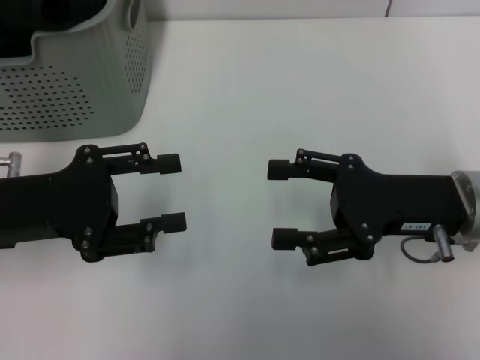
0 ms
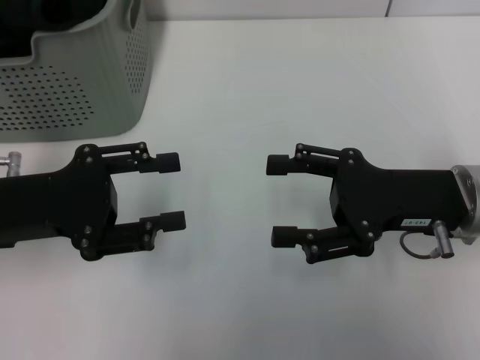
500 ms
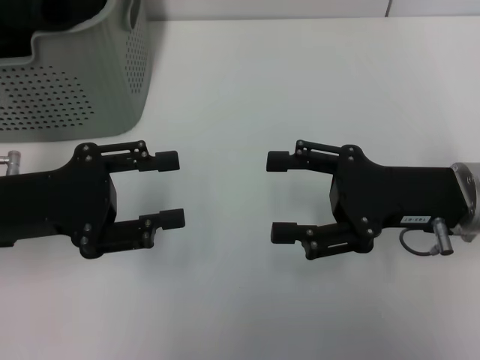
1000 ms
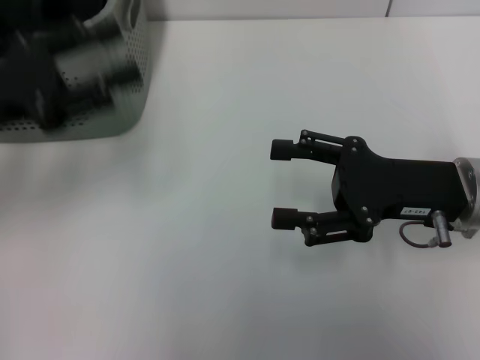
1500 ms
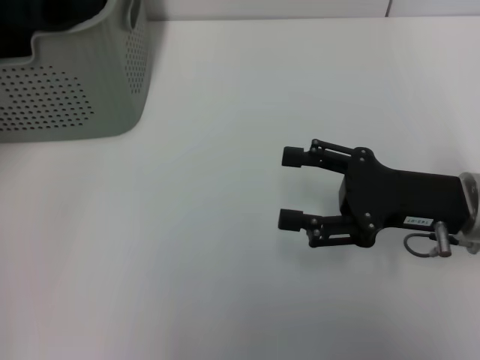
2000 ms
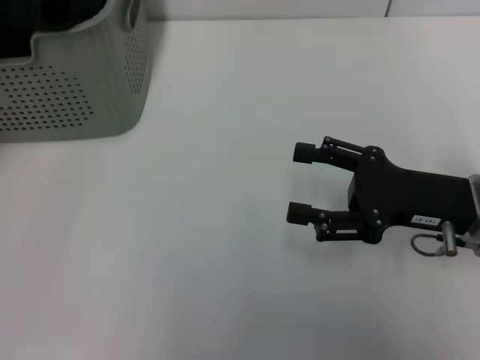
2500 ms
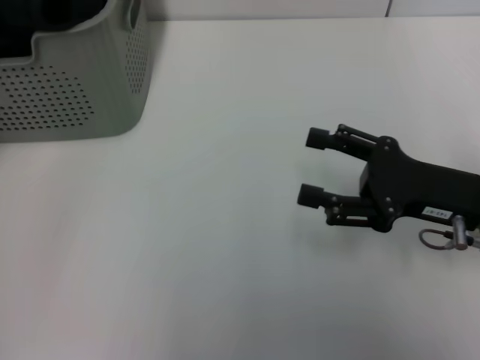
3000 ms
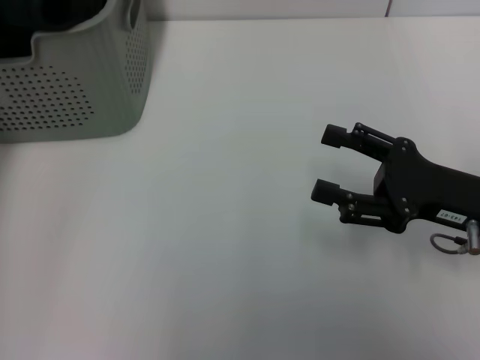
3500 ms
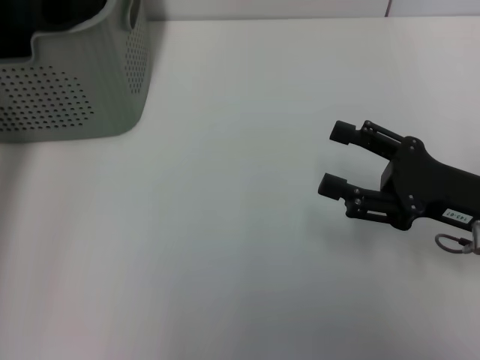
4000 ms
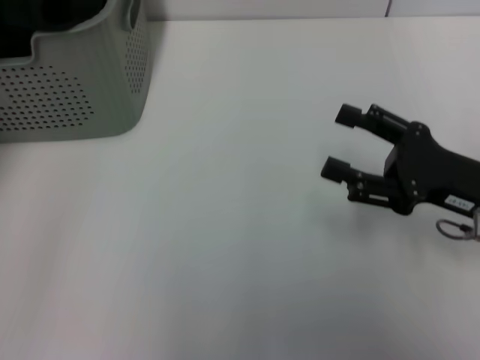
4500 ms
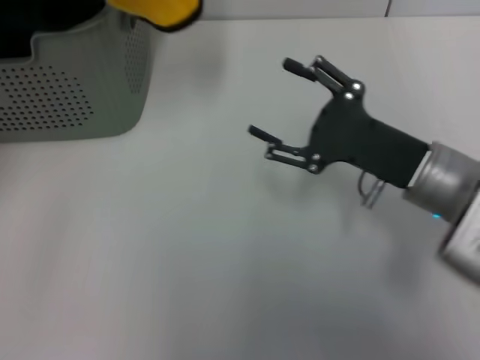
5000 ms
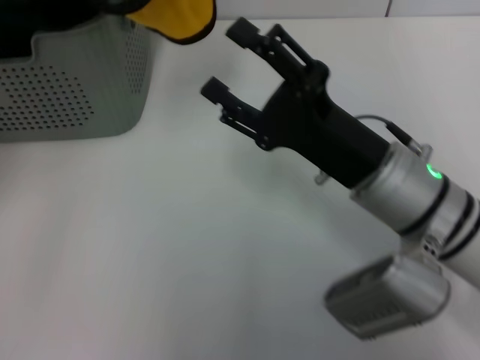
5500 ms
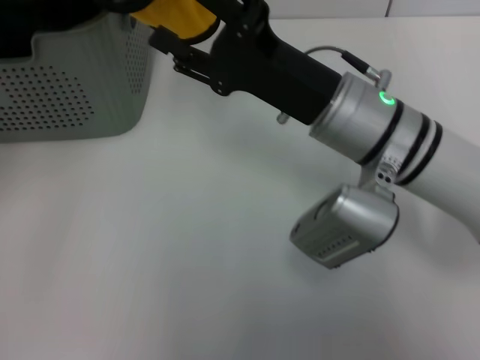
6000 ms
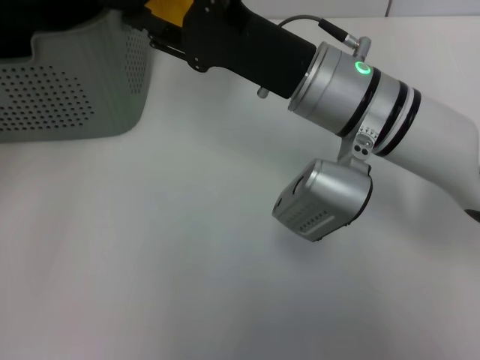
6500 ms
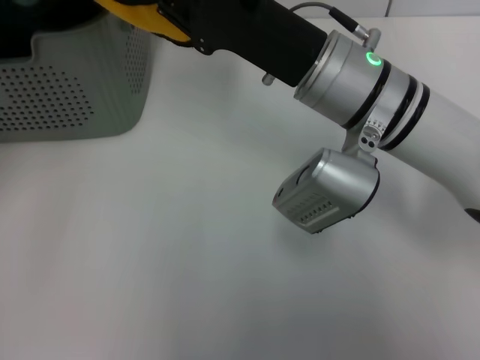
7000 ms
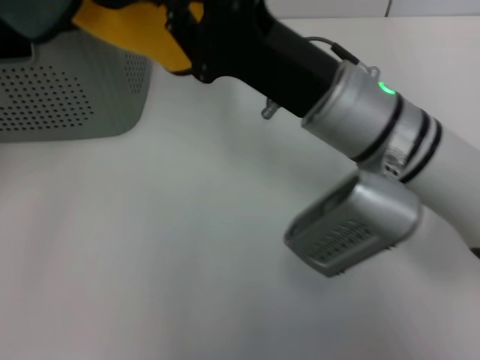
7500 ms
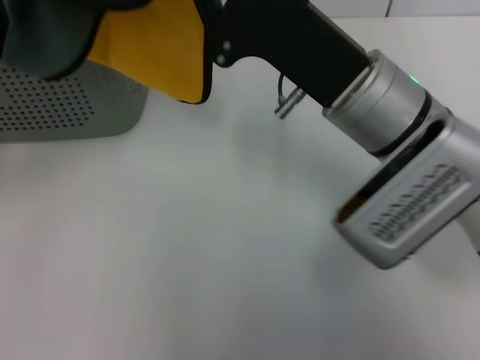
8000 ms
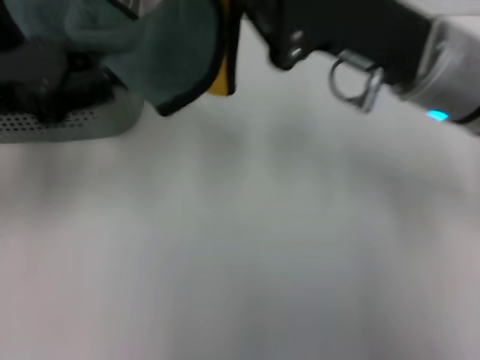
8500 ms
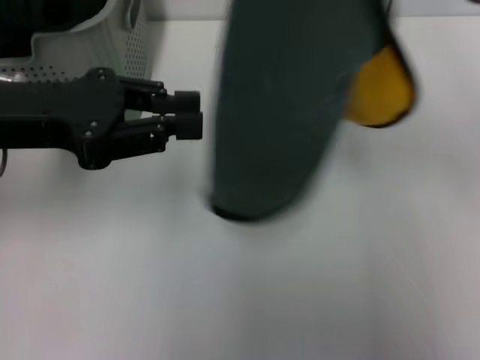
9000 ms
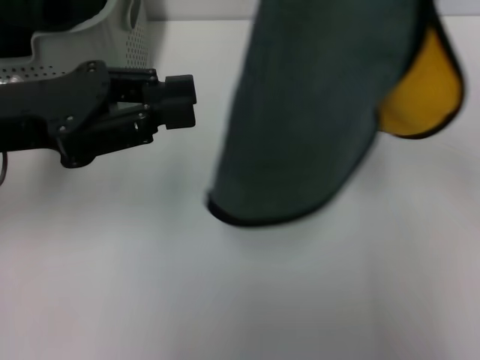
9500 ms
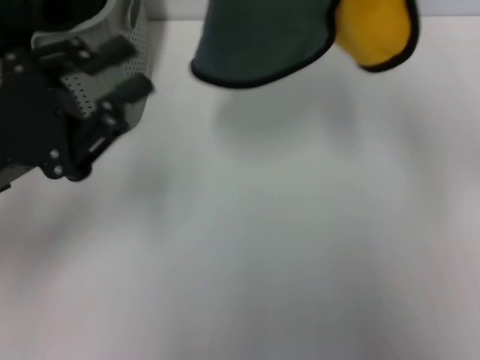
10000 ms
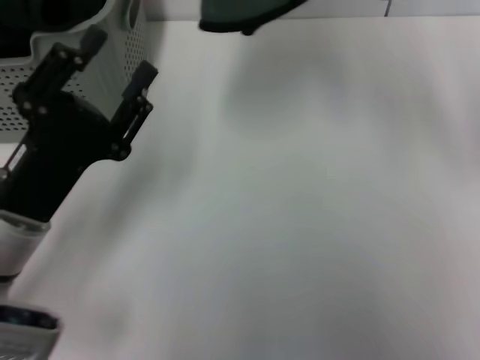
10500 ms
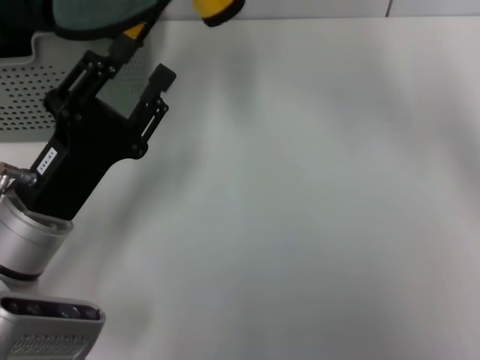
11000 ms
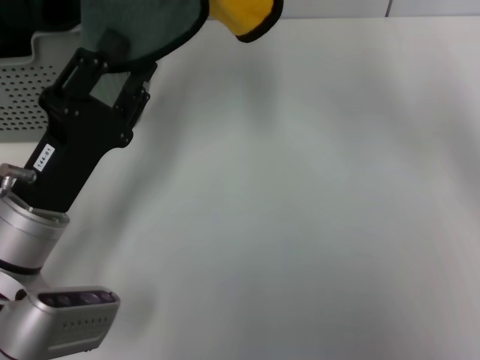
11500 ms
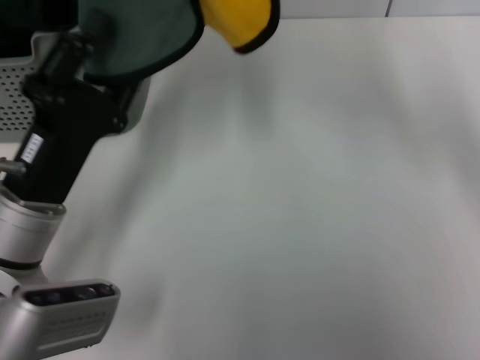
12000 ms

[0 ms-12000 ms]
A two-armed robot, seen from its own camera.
Task of the whole recording: pick up the towel from the storage box and lay it flat on the table.
Step, 0 ms to 3500 ms: Pick up a towel with the left gripper.
Step, 4000 ms to 7000 ms: Spread the towel flat with the left gripper.
0 ms to 2000 ms: The left gripper heads upward and forward, covering some 15 cm.
4000 ms to 6000 ms: The right gripper is displaced to the left by about 15 cm. The left gripper travels upward by approximately 5 cm, and closes.
6000 ms to 8000 ms: The left gripper shifts by roughly 5 cm; the right gripper closes its fingers.
8000 ms to 10000 ms: The left gripper heads downward and to the right, covering about 10 cm, and opens. The right gripper shifts approximately 15 cm upward and to the right.
10000 ms to 12000 ms: The right gripper travels to the left and forward by some 10 cm. Meanwhile the left gripper heads downward and to the right, covering some 10 cm.

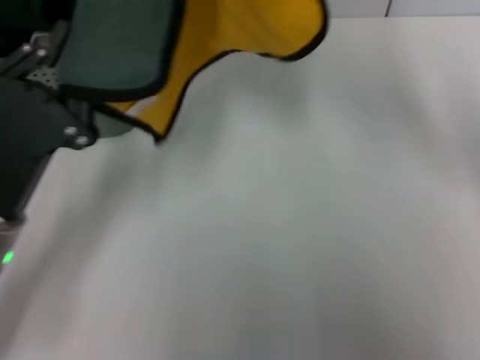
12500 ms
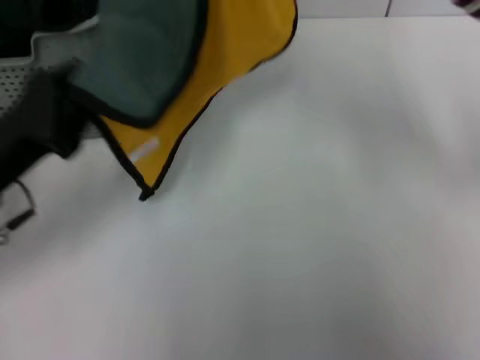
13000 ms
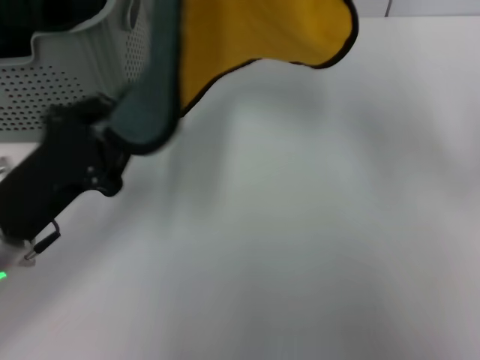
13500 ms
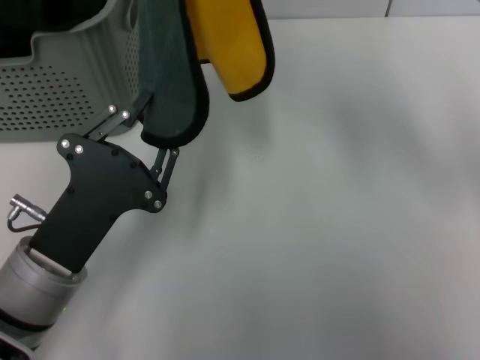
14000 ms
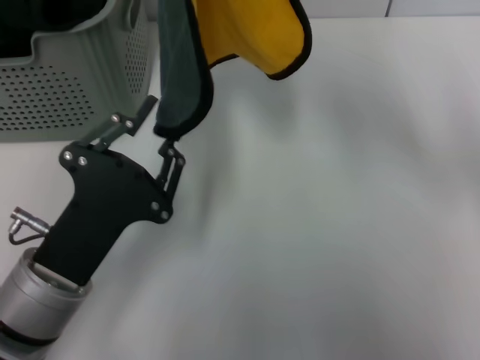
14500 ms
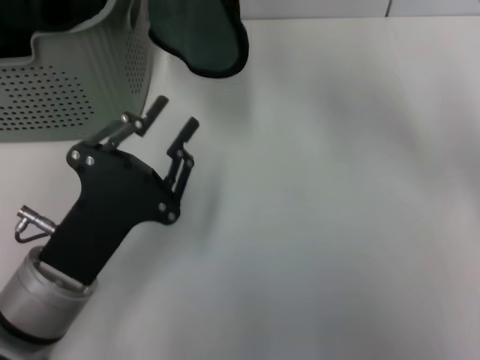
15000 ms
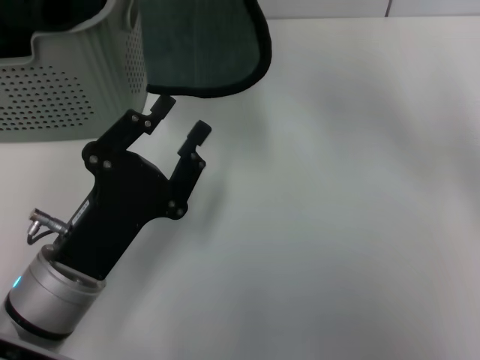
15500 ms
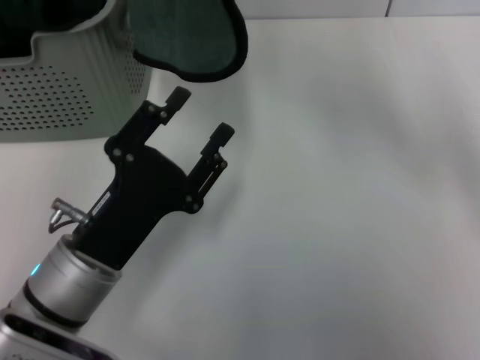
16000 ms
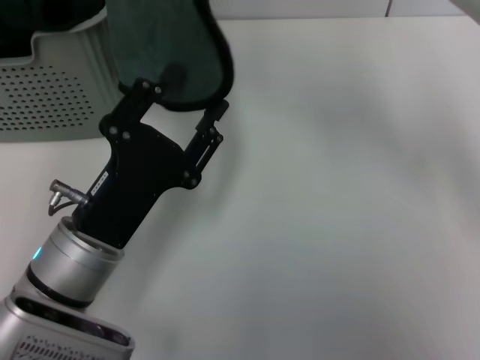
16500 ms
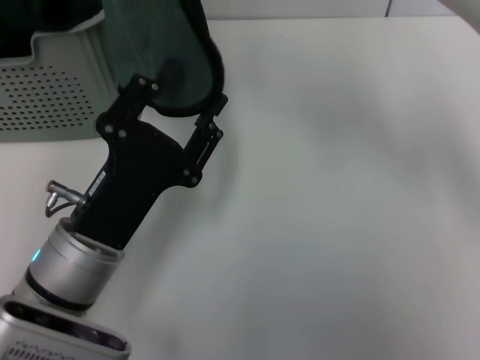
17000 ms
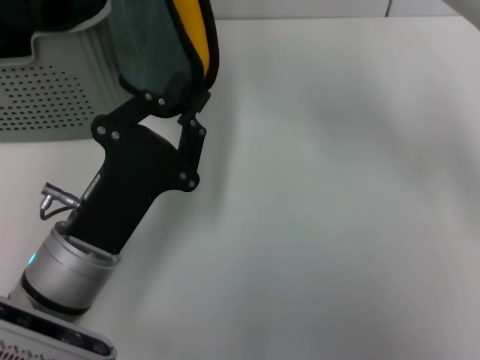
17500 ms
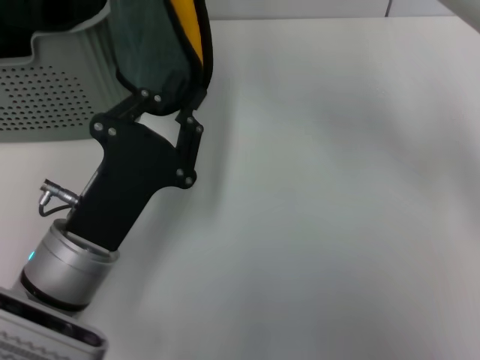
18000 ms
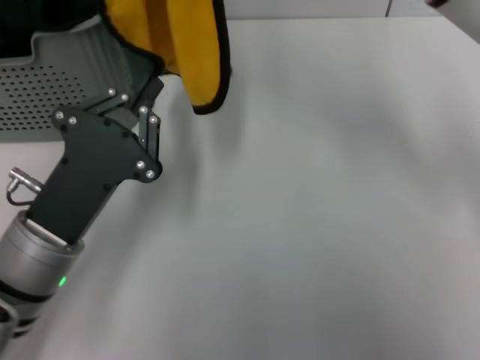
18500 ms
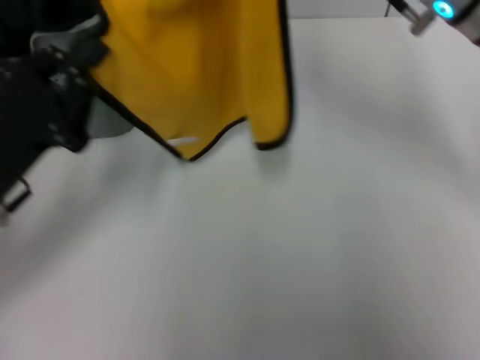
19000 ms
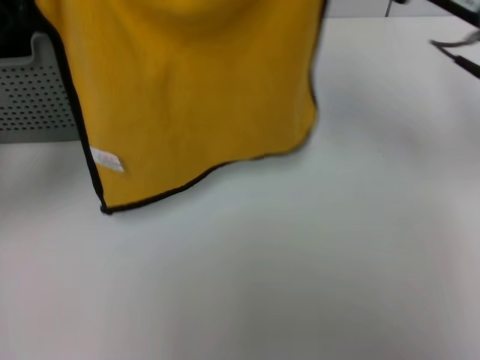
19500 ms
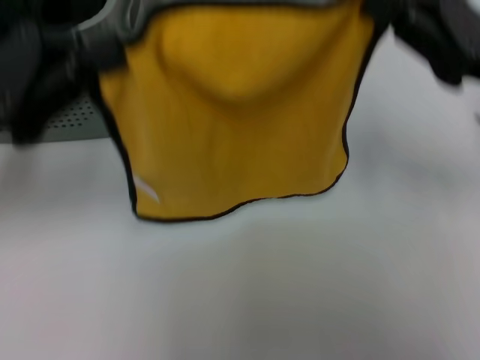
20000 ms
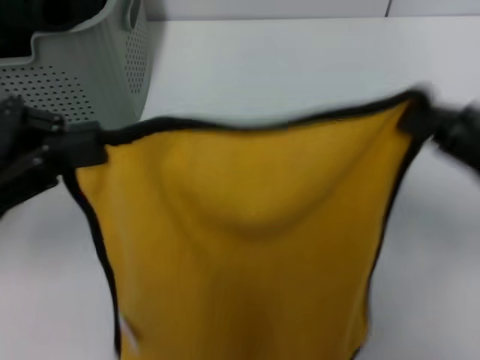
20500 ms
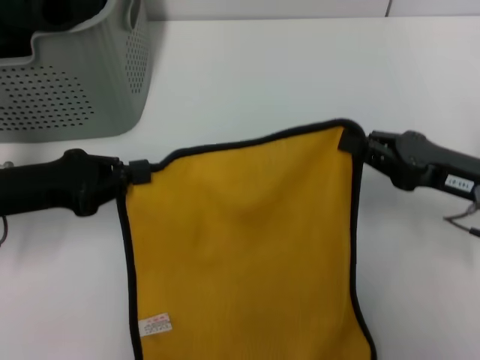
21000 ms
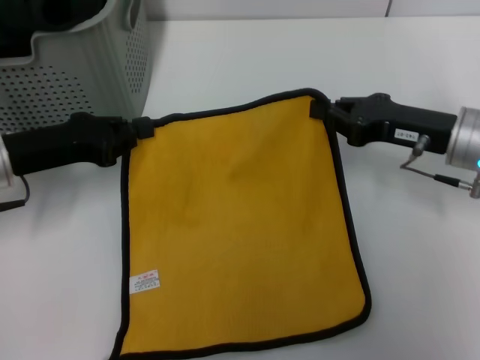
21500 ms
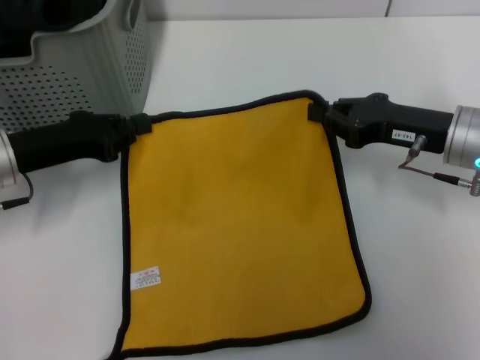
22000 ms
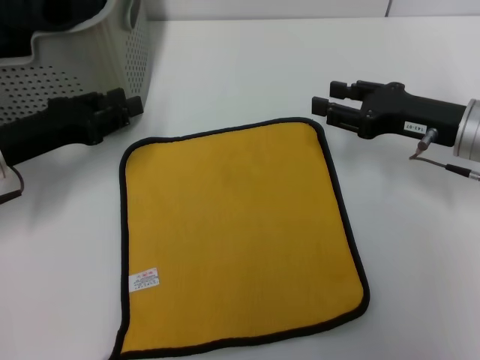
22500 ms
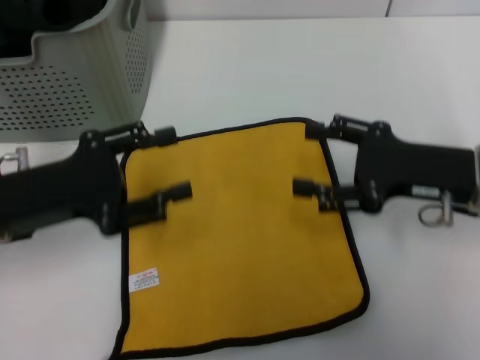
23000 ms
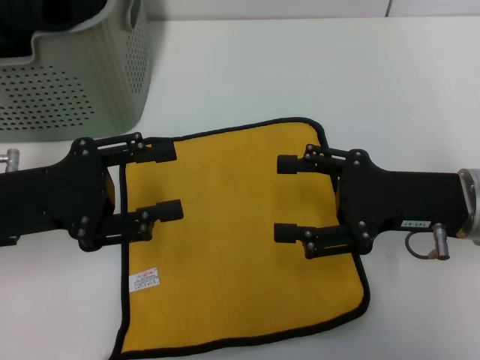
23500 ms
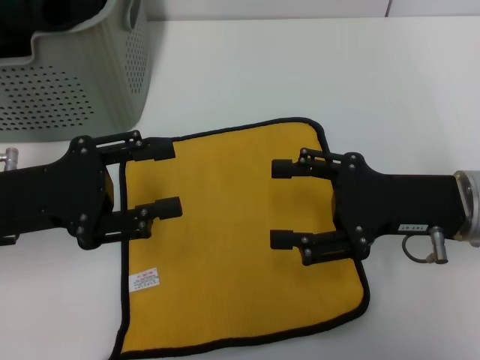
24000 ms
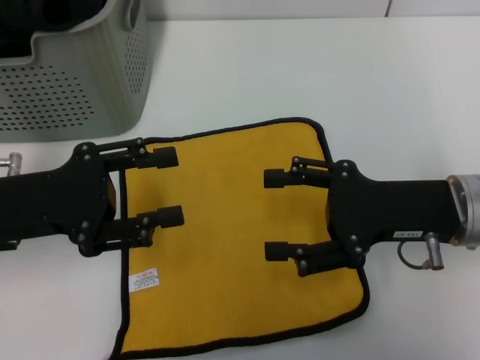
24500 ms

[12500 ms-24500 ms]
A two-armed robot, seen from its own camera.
Task of the whole recording: pick up the towel from the storage box and lay it flat on the table.
Step, 12500 ms to 22000 ms: Spread the towel flat with the right gripper.
12500 ms to 14500 ms: The left gripper moves roughly 5 cm.
14500 ms to 16500 ms: The left gripper opens its fingers.
16500 ms to 18500 ms: The left gripper closes.
18500 ms to 20500 ms: The left gripper travels upward and to the left by some 15 cm; the right gripper goes about 25 cm to the right, downward and backward.
20500 ms to 22500 ms: The left gripper heads downward and forward, covering some 10 cm. Meanwhile the right gripper moves forward, some 10 cm, and opens its fingers.
22500 ms to 24500 ms: The two grippers go approximately 5 cm backward. The right gripper opens its fingers; the left gripper opens up.
